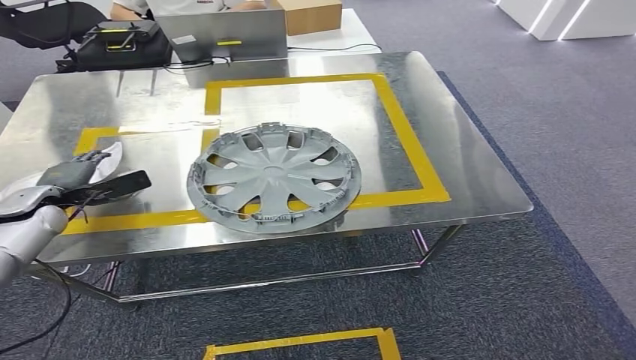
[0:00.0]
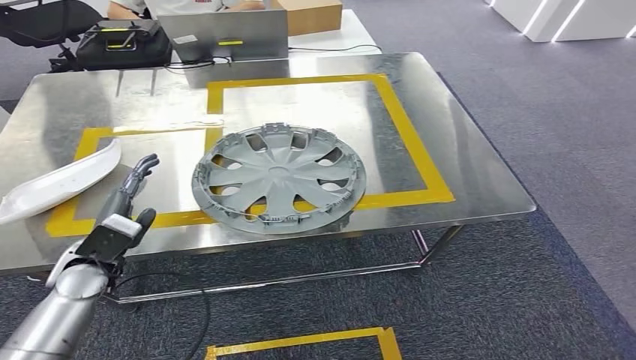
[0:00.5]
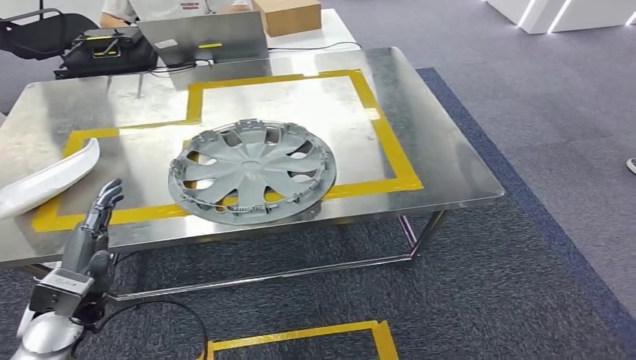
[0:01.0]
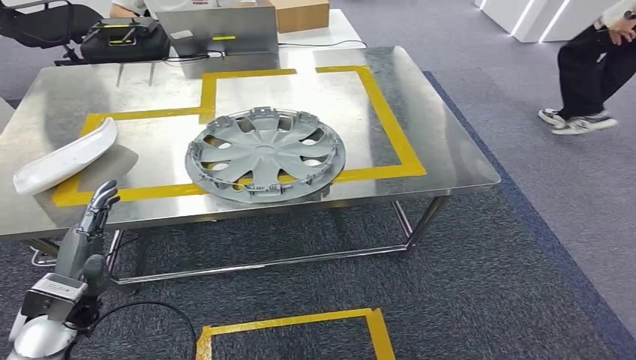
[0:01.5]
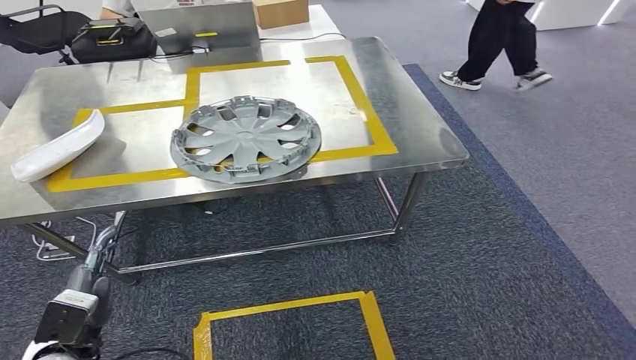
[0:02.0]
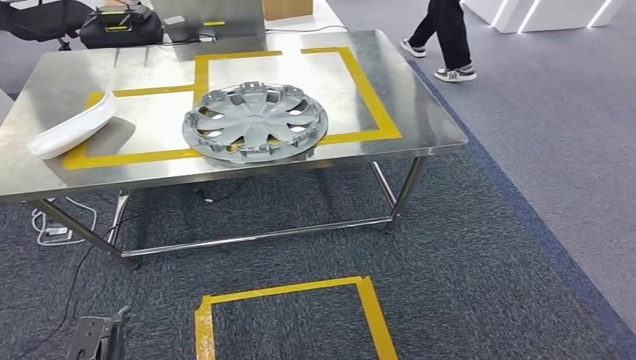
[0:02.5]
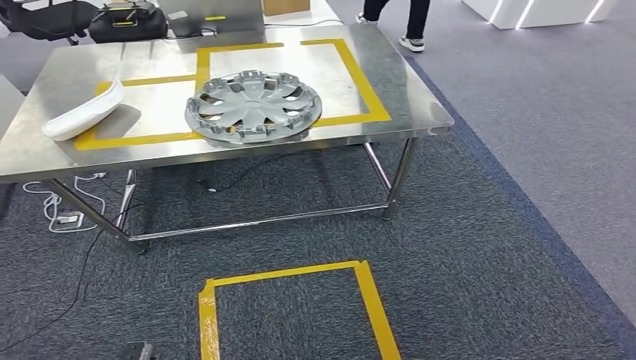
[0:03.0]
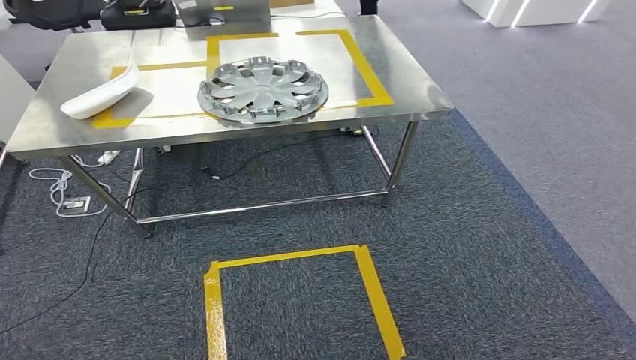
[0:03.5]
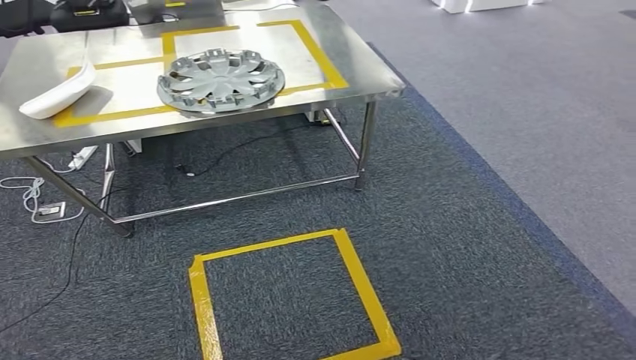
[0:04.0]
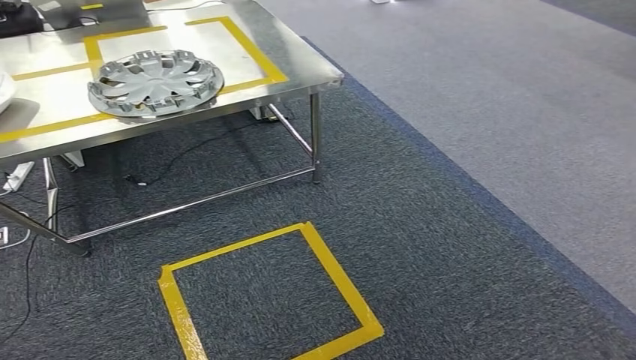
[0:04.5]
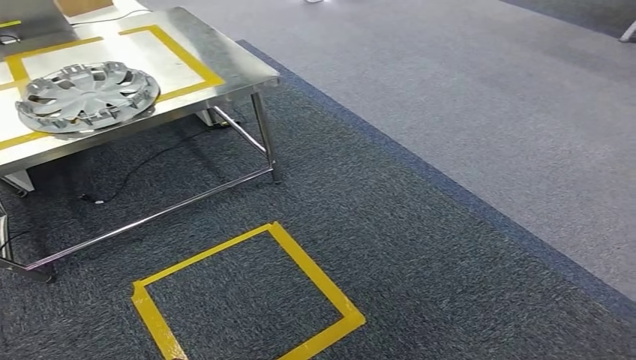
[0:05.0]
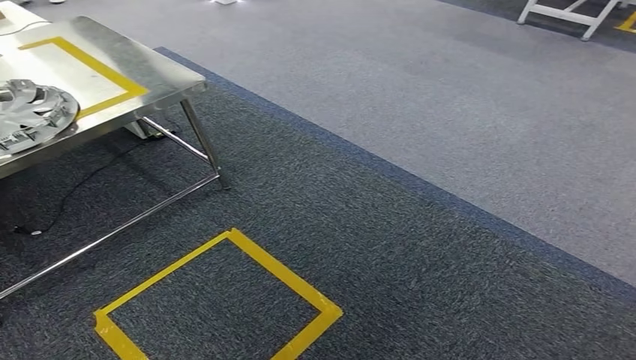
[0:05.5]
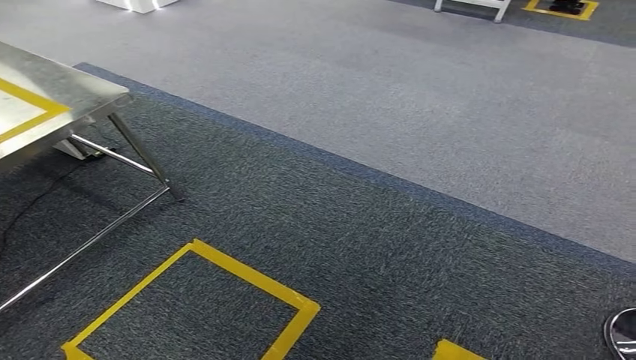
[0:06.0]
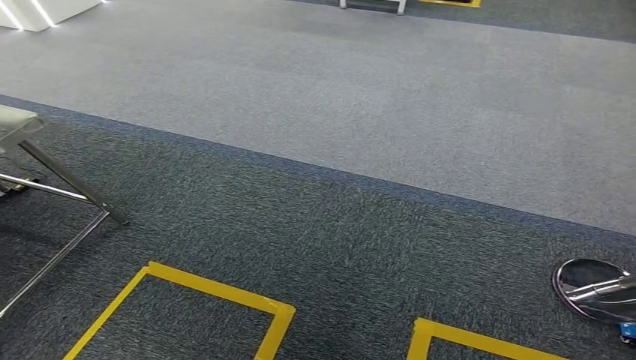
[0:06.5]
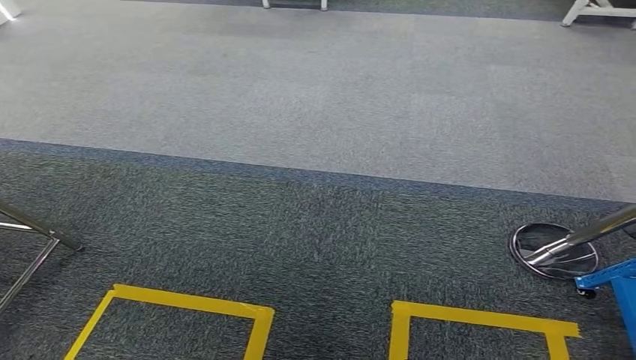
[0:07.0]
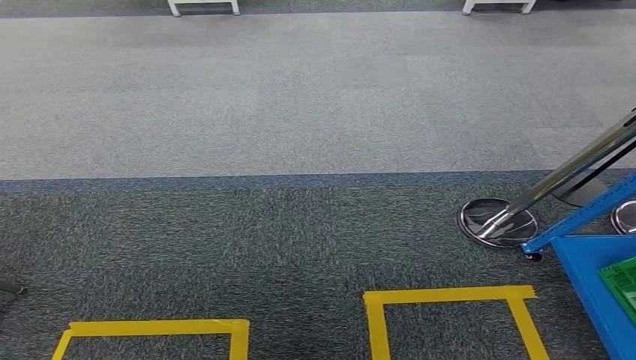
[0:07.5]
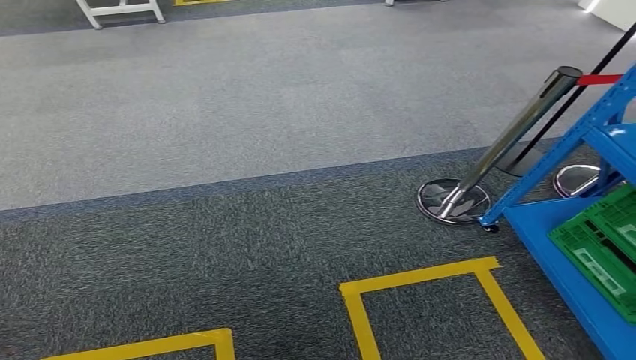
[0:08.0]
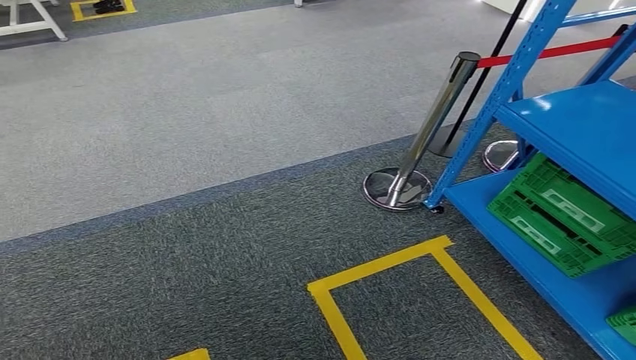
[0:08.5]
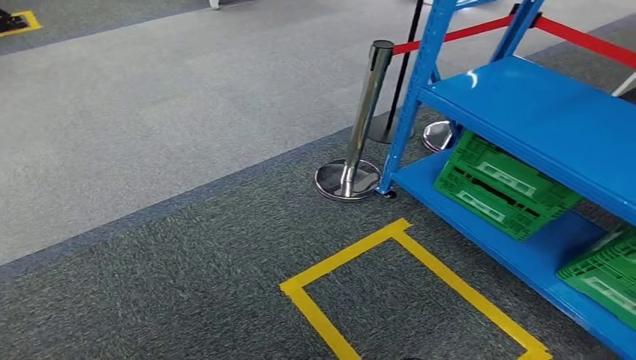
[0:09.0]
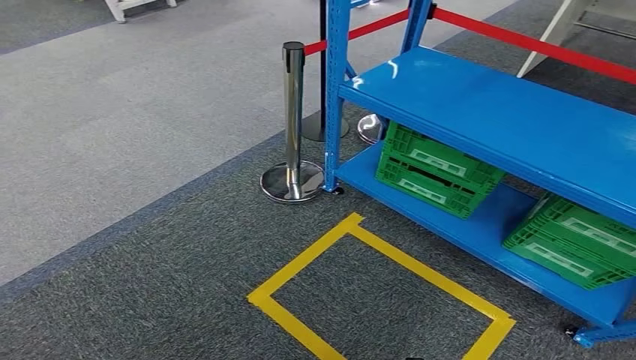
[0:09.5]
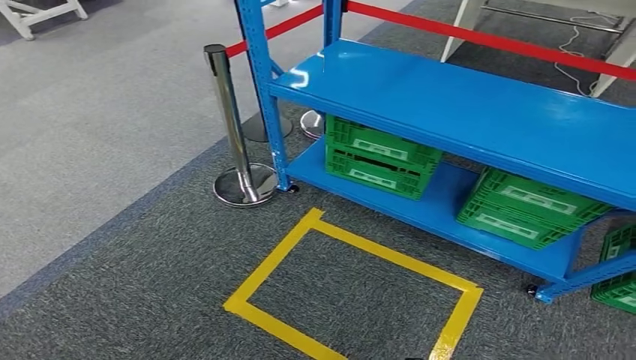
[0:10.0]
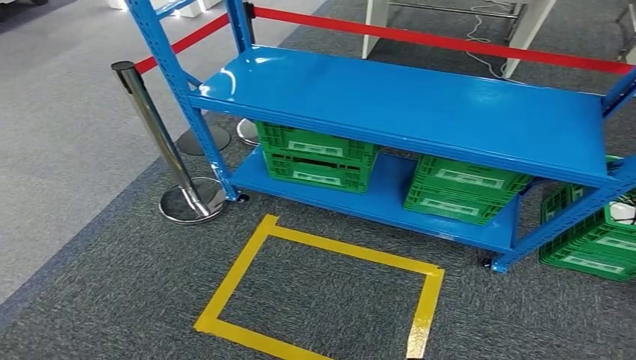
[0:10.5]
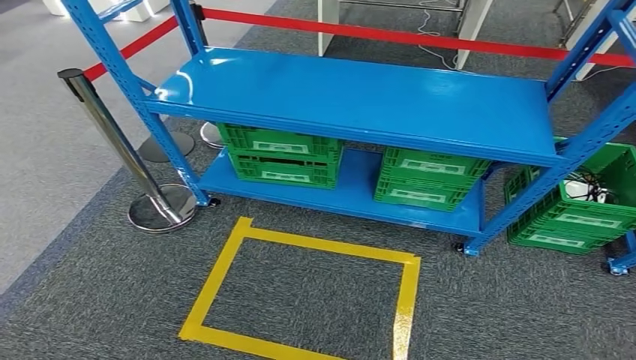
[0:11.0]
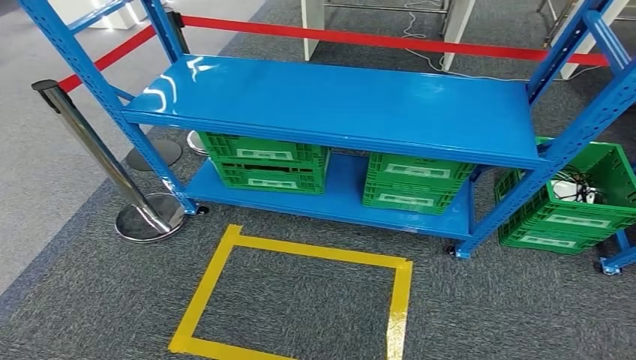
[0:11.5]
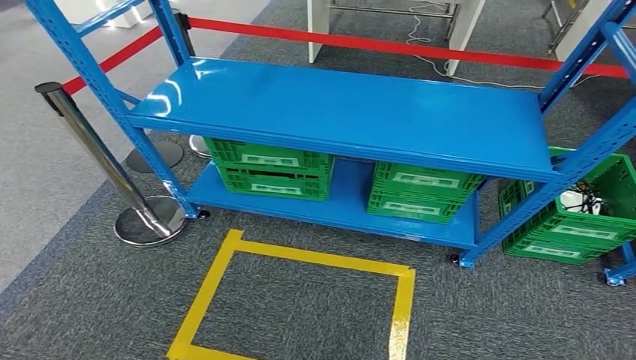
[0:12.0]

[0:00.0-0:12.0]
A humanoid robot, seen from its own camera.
Step, 0:00.0 to 0:02.0: Insert the small parts into the corresponding holes on the workbench.

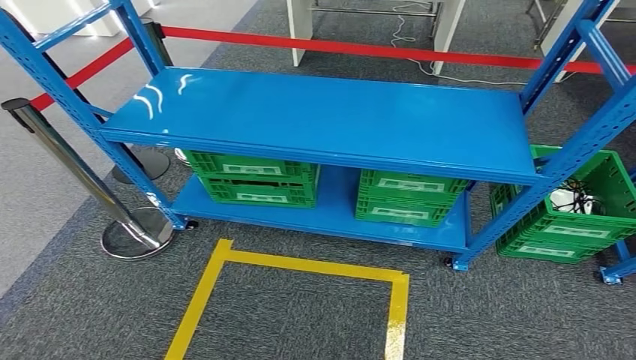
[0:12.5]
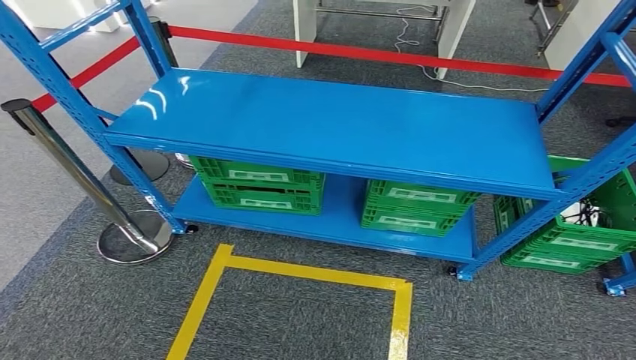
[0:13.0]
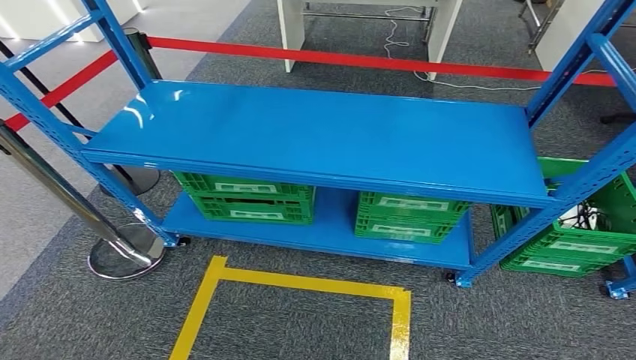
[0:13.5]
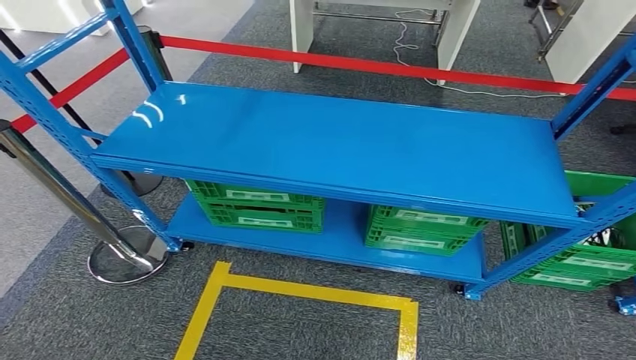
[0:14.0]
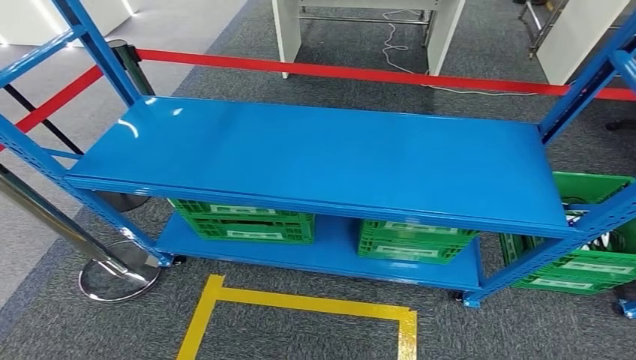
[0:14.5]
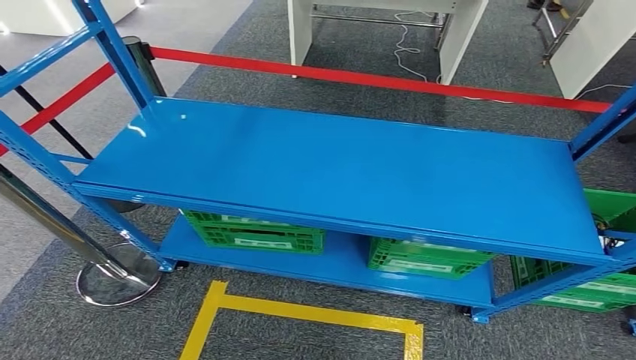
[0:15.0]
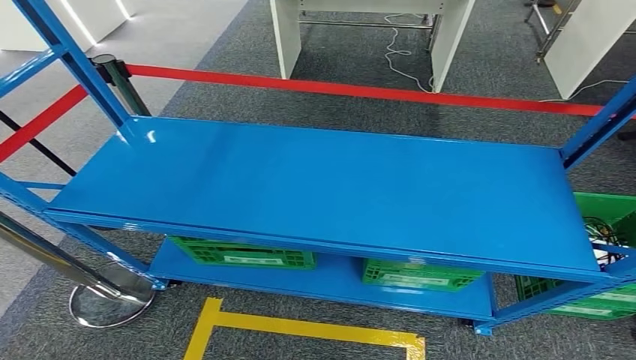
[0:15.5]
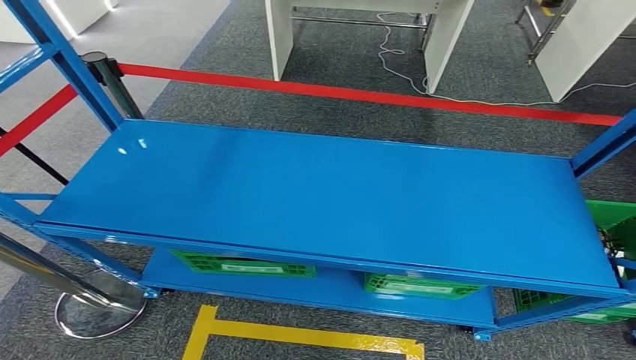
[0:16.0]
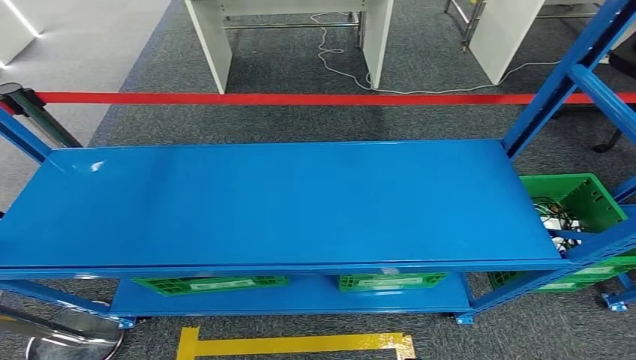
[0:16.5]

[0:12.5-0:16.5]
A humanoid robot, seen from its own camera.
Step, 0:12.5 to 0:16.5: Move to the initial position of the workbench.

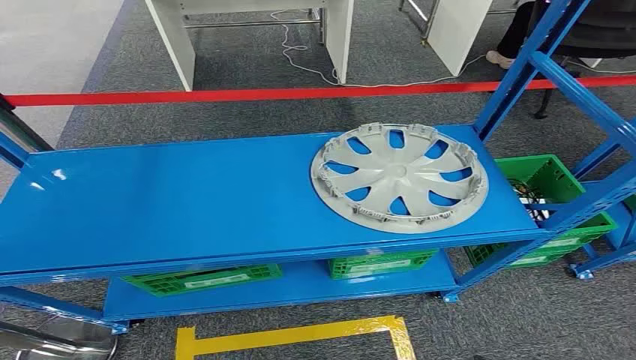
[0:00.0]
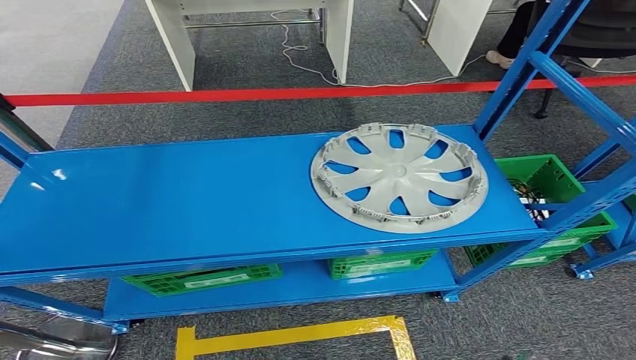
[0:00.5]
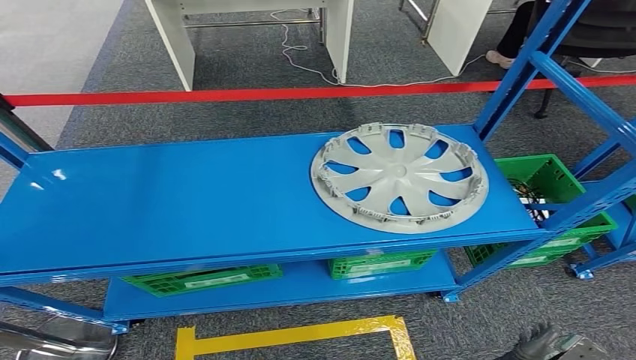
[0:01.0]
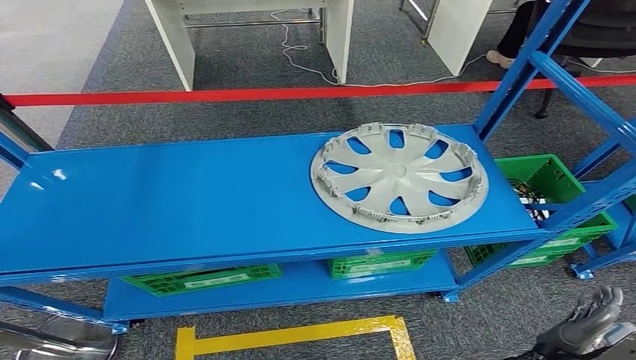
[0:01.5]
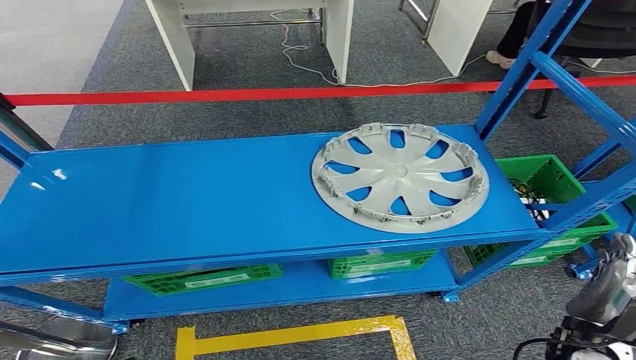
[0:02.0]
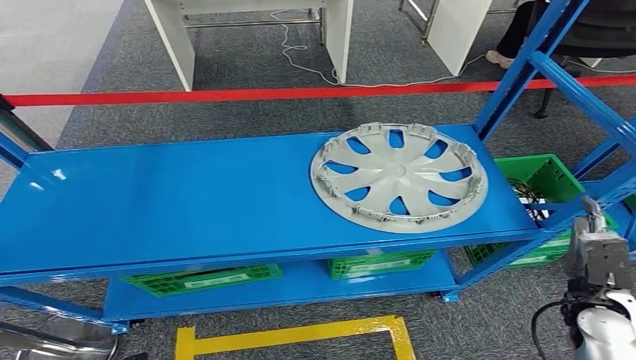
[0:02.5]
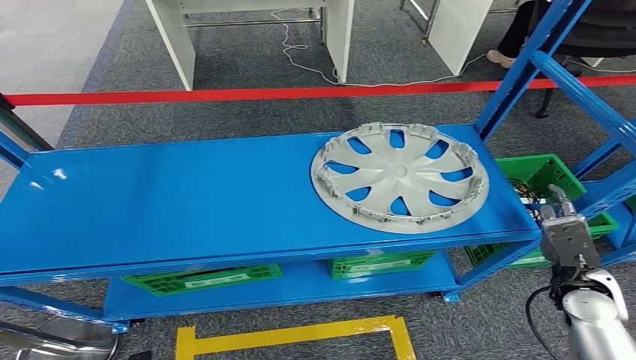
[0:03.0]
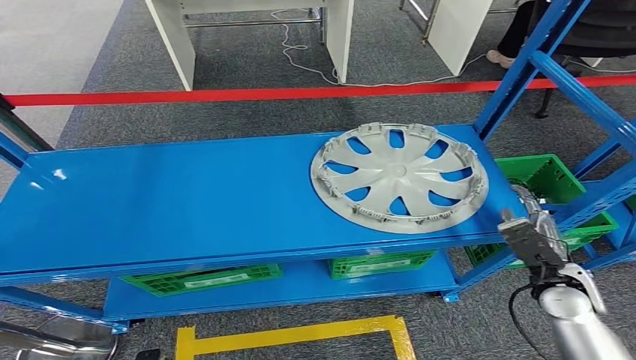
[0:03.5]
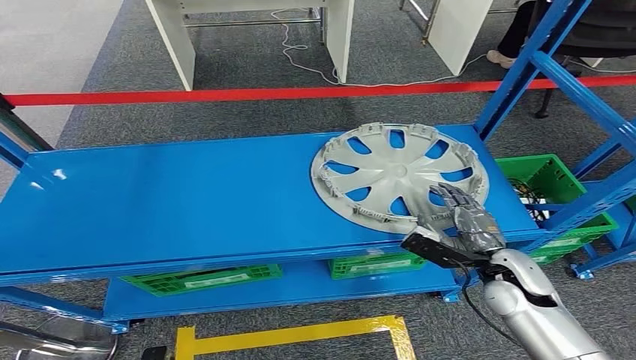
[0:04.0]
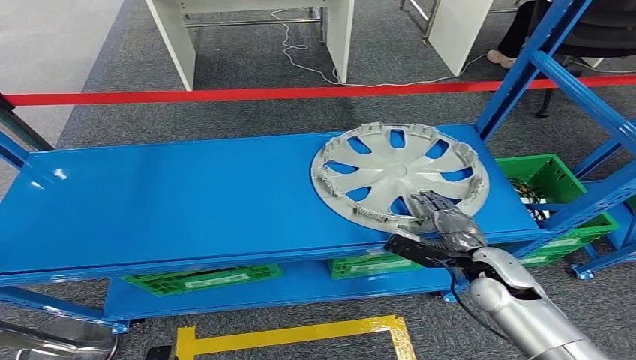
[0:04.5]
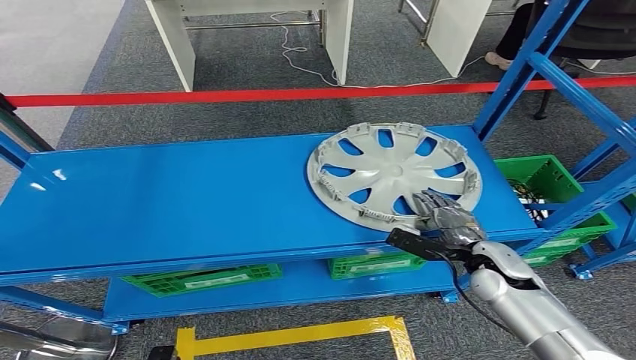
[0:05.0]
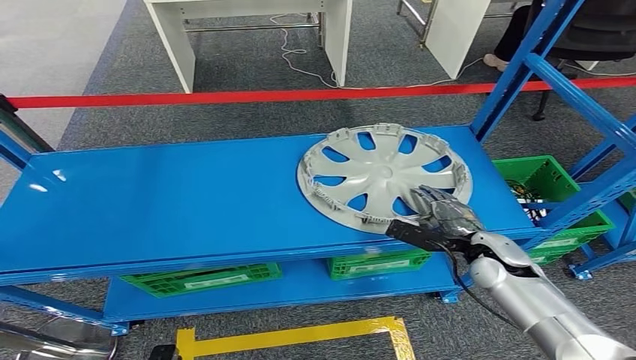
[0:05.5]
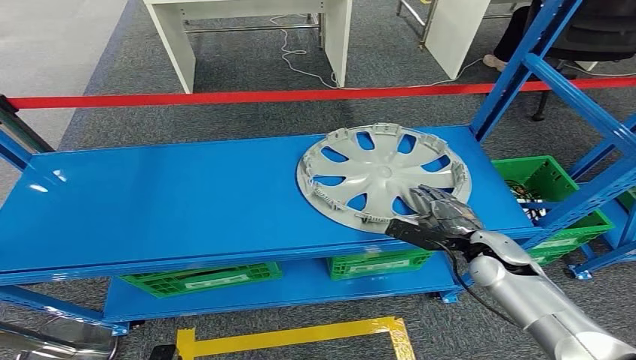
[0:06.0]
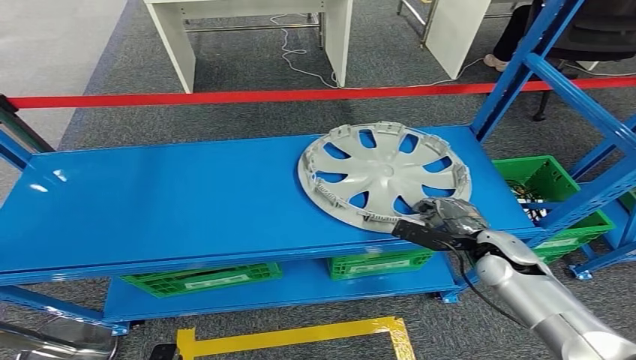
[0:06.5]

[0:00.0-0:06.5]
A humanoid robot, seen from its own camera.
0:02.0 to 0:04.5: The right hand heads forward and to the left, covering about 15 cm.
0:04.5 to 0:06.5: The hands make only small movements.
